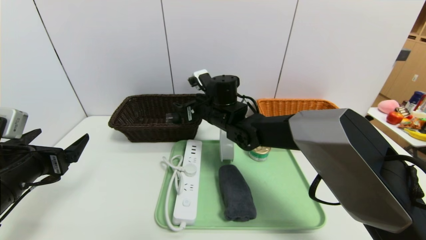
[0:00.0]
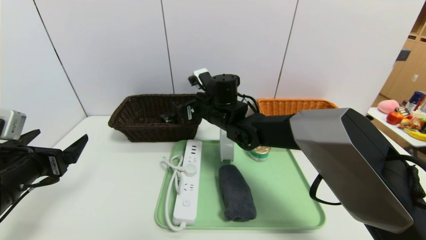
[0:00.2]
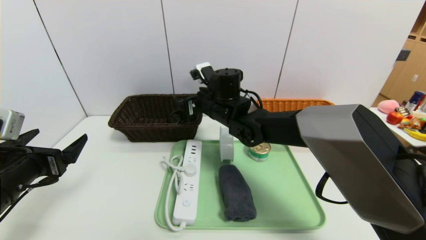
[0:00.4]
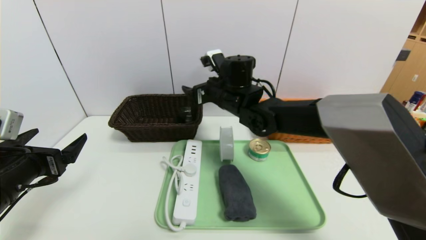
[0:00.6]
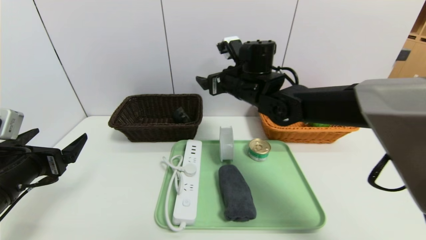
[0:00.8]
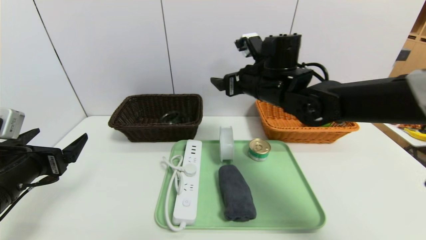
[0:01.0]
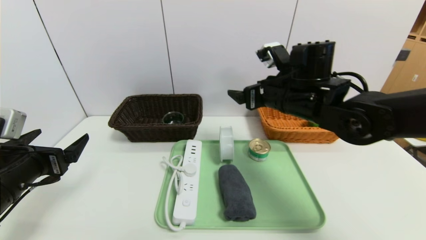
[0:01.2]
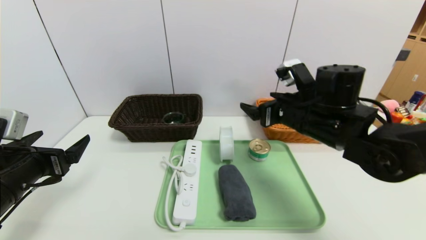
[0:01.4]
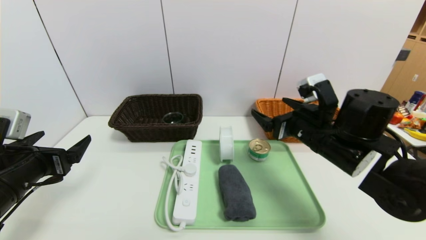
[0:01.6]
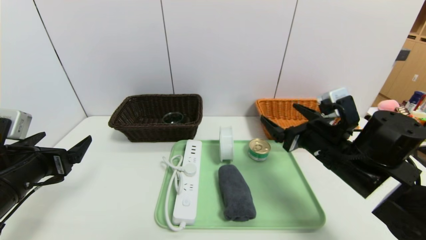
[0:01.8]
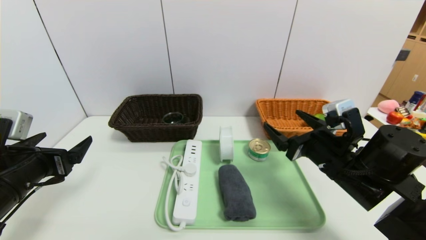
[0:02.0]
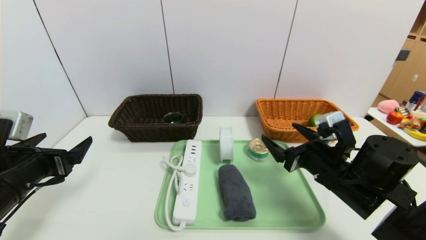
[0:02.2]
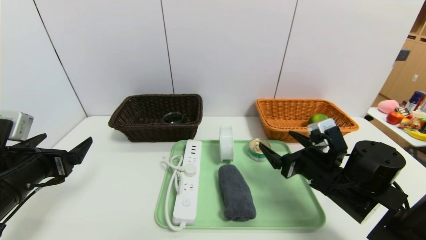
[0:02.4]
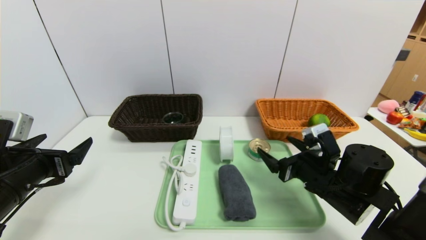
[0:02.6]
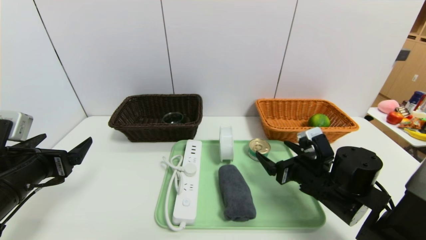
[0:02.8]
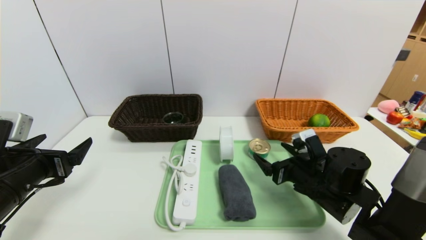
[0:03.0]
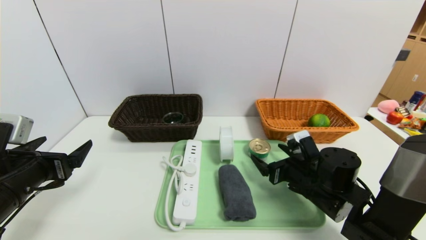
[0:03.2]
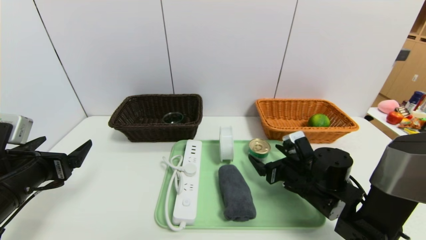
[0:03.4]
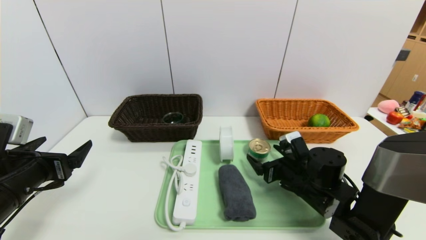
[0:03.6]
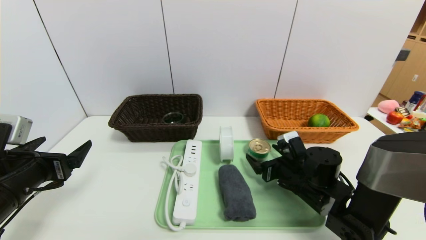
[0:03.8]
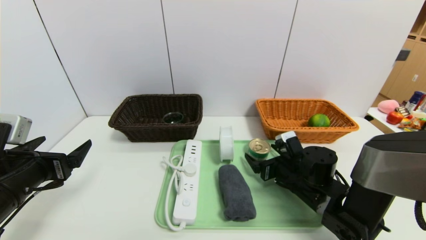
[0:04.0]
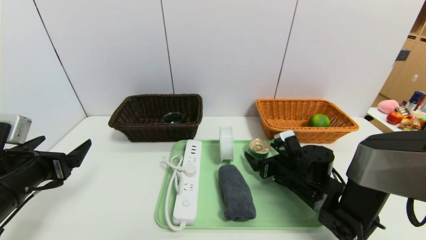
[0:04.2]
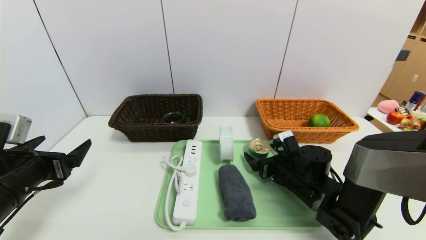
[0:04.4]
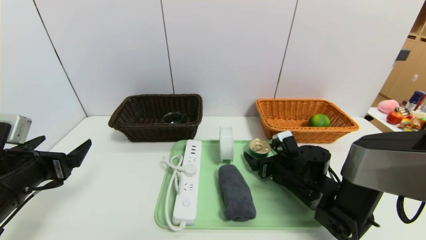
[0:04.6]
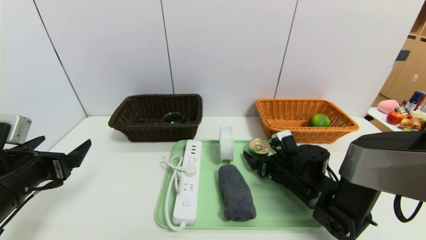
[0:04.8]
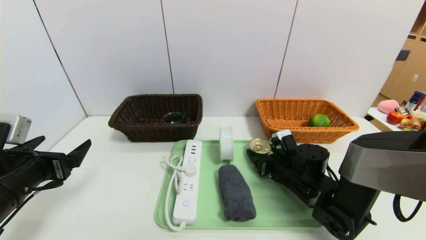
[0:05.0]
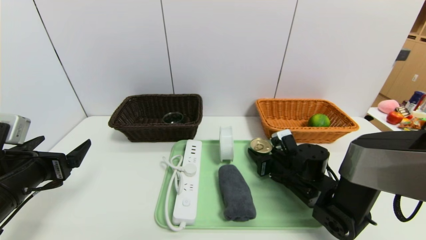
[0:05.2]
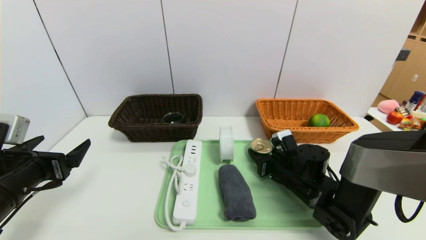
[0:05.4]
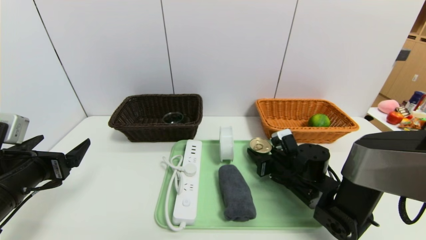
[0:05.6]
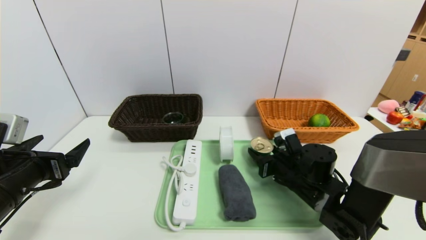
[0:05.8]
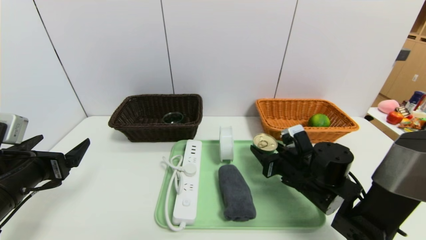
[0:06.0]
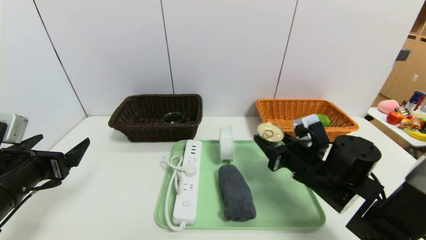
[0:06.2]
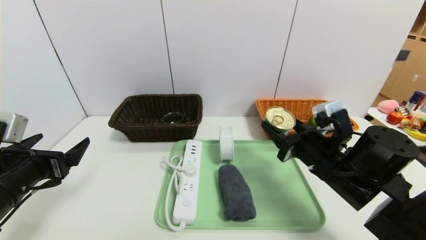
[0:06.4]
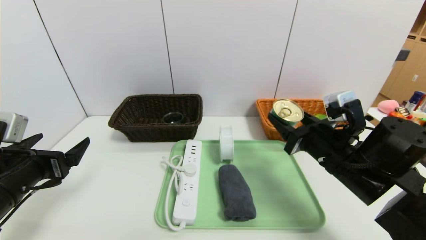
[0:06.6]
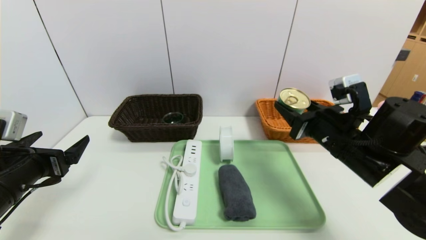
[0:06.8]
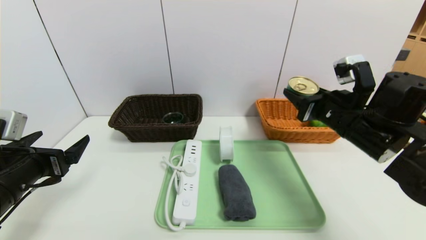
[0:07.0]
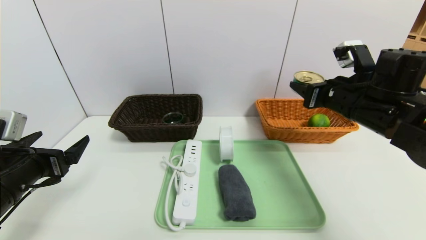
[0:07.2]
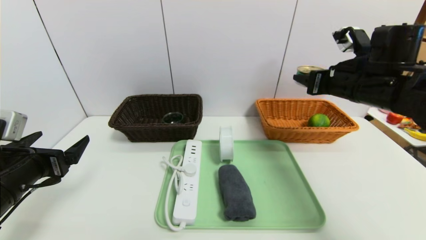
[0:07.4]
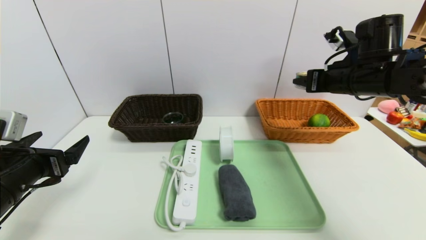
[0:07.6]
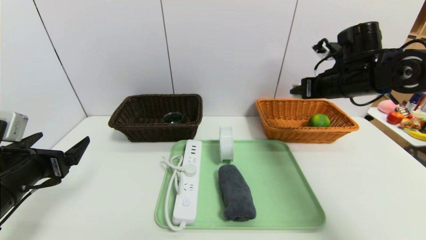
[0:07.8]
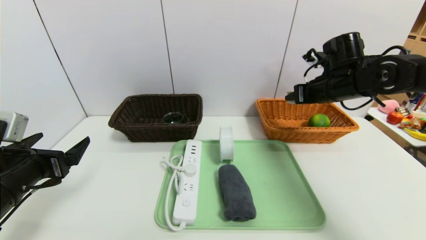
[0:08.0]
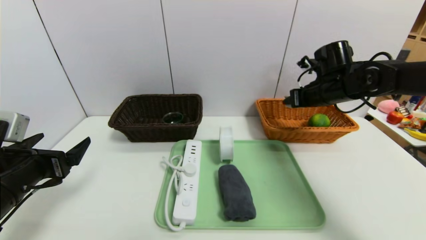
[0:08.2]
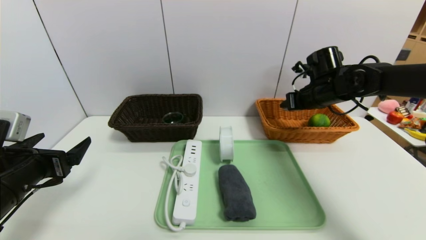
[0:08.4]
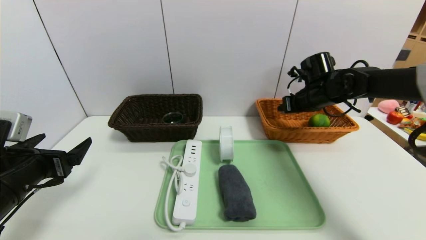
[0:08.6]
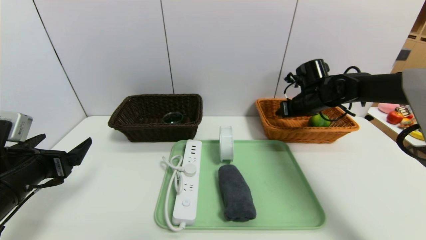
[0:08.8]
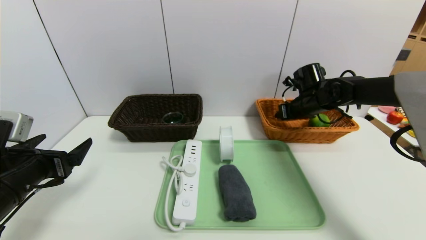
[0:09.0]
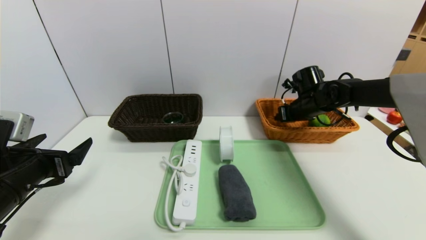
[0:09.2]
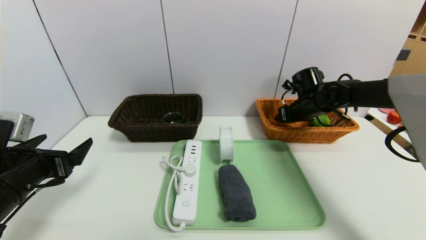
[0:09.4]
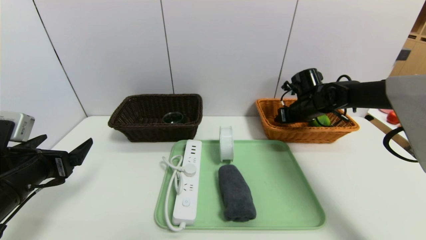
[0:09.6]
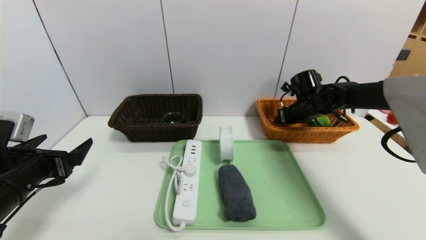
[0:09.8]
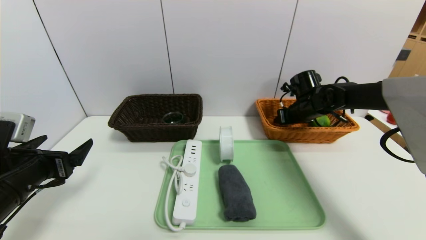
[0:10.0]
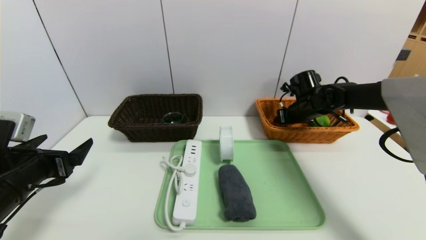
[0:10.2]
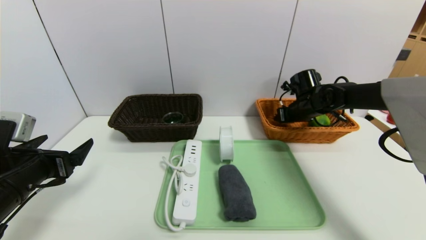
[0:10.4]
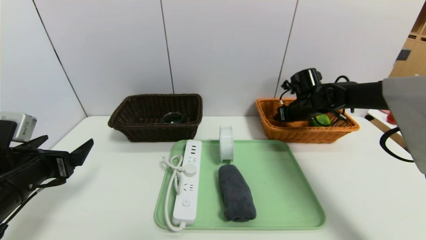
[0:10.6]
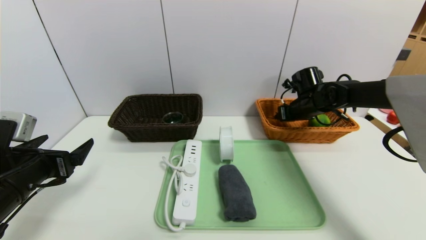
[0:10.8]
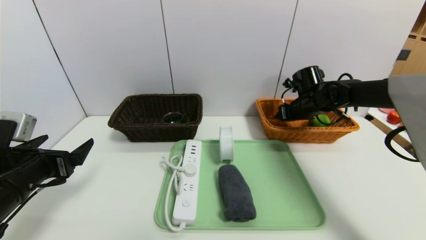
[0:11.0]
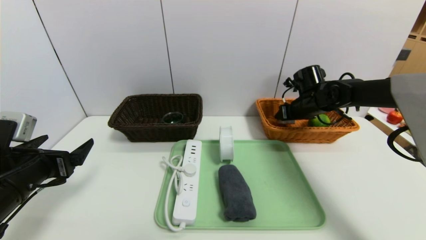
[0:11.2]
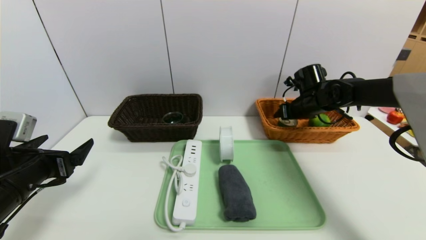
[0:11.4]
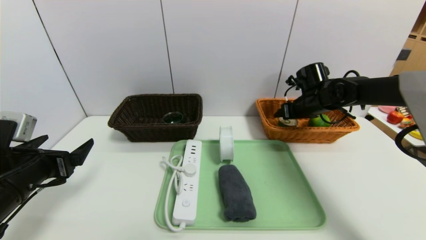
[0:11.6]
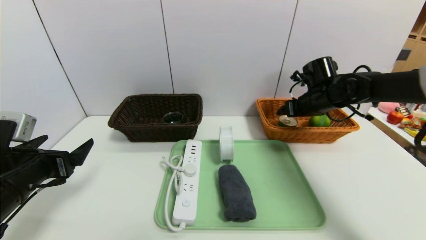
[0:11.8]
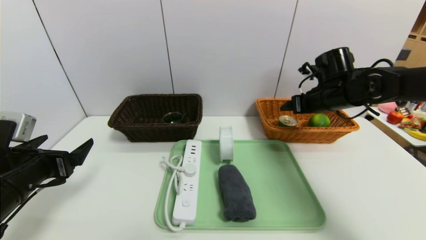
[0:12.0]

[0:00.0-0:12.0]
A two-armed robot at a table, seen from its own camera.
Task of the whole recording: place the food in the right basket with the right gripper, and place the non food items in the left basket with the left gripper.
Step, 0:00.2 to 0:11.4: Grasp the can and put it in the right basket.
0:00.0 to 0:01.6: The right gripper travels to the right and backward by about 25 cm.
0:01.6 to 0:03.0: The right gripper goes about 10 cm downward.
0:03.0 to 0:04.4: The right gripper ends up about 5 cm from where it was.
0:04.4 to 0:06.0: The right gripper ends up some 5 cm from where it was, and closes.
0:06.0 to 0:07.6: The right gripper goes about 20 cm upward and to the right.
0:07.6 to 0:09.0: The right gripper goes roughly 15 cm forward and downward.
0:09.0 to 0:10.4: The grippers make only small movements.
0:10.4 to 0:12.0: The right gripper is displaced backward and upward by some 10 cm, and opens up.

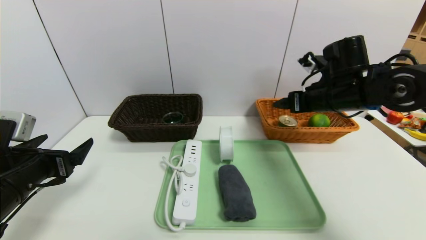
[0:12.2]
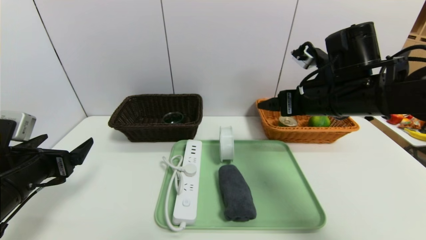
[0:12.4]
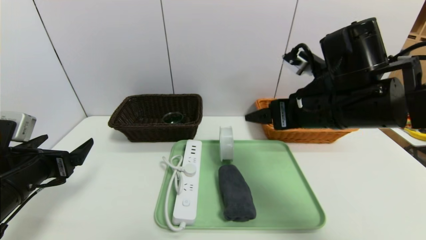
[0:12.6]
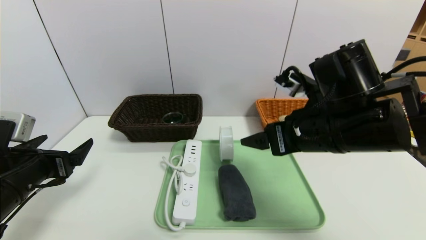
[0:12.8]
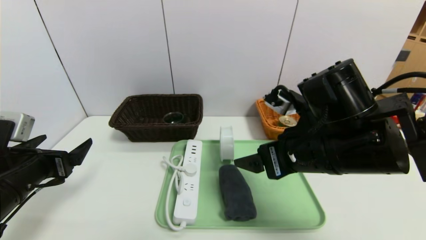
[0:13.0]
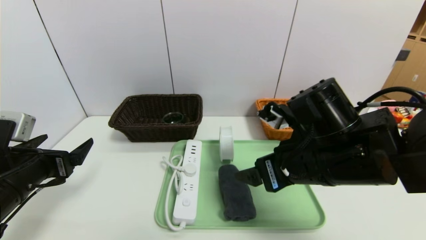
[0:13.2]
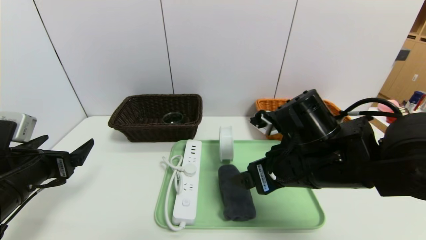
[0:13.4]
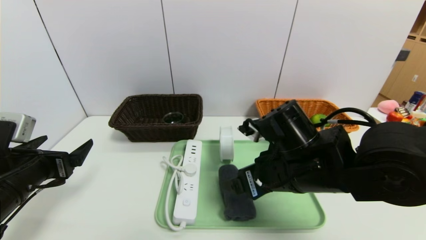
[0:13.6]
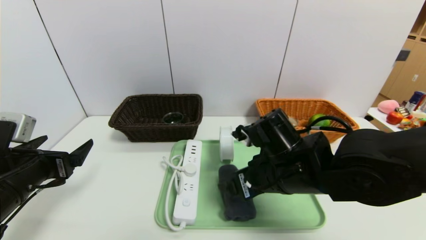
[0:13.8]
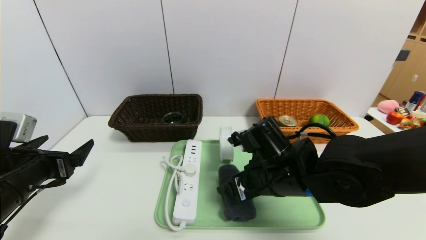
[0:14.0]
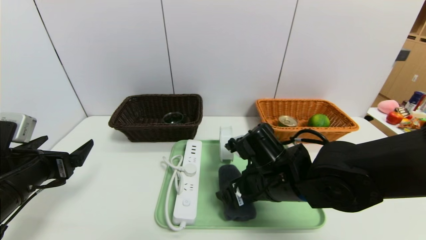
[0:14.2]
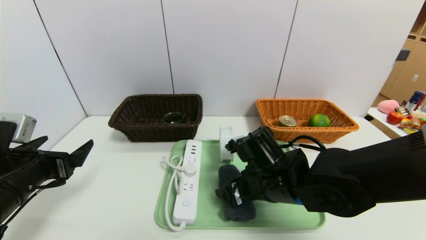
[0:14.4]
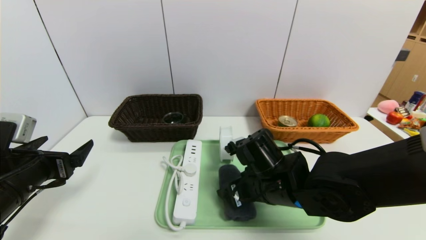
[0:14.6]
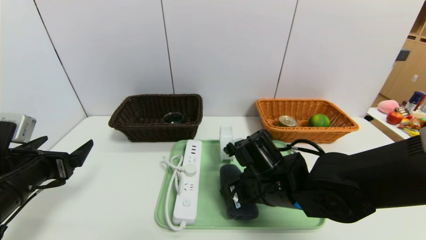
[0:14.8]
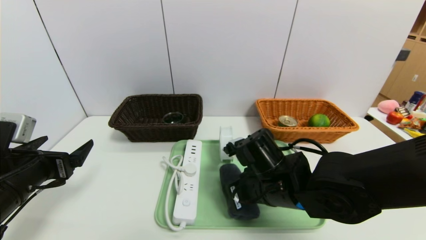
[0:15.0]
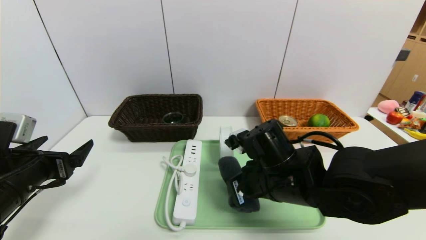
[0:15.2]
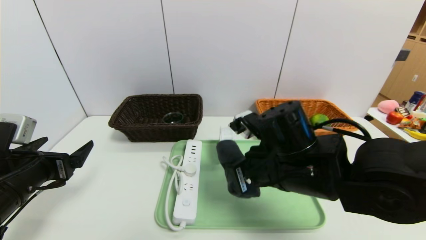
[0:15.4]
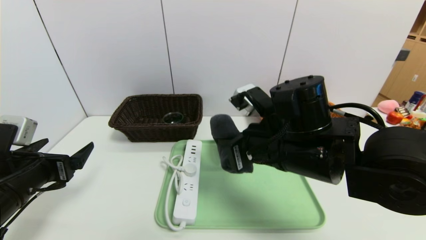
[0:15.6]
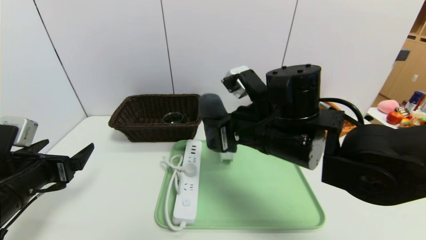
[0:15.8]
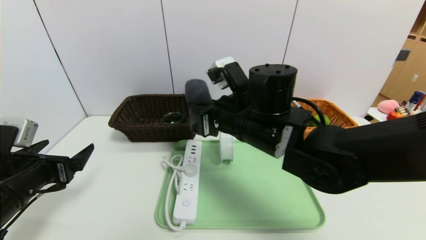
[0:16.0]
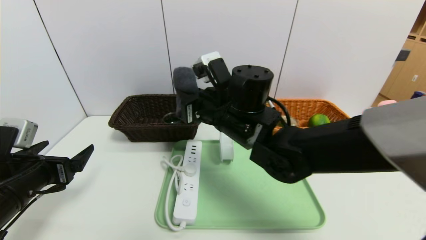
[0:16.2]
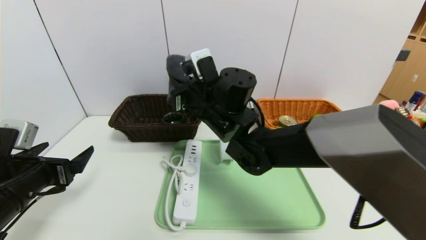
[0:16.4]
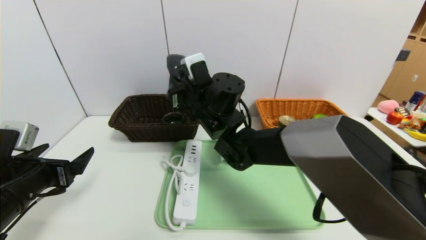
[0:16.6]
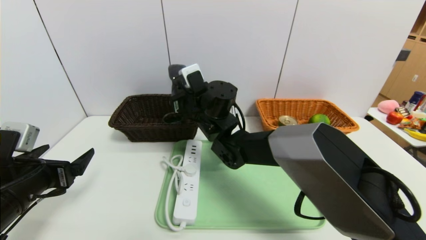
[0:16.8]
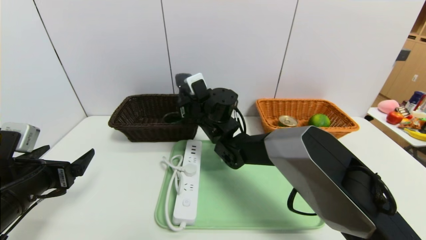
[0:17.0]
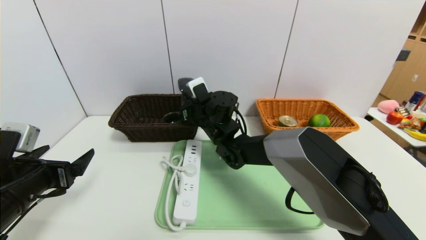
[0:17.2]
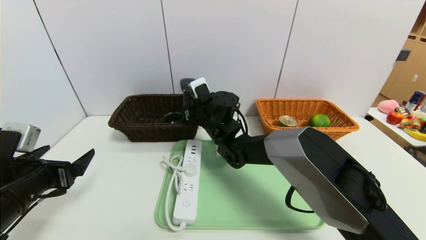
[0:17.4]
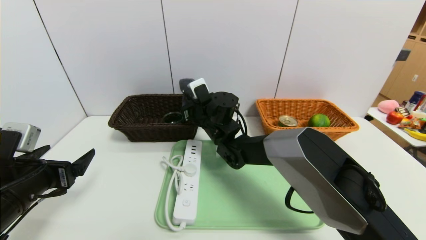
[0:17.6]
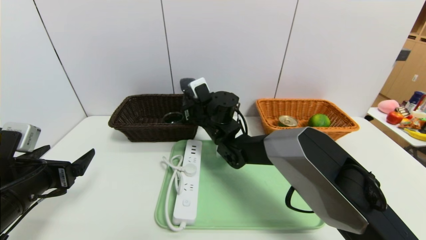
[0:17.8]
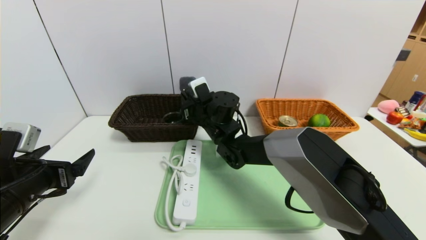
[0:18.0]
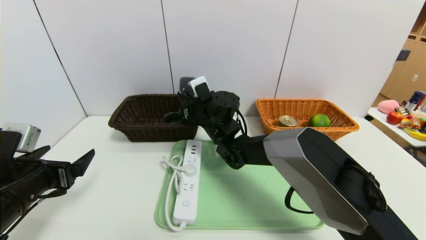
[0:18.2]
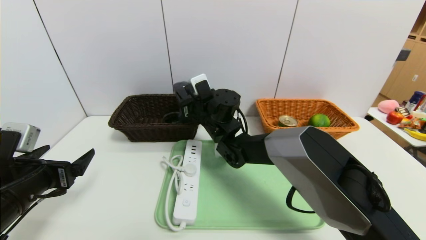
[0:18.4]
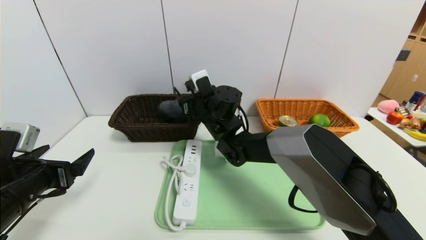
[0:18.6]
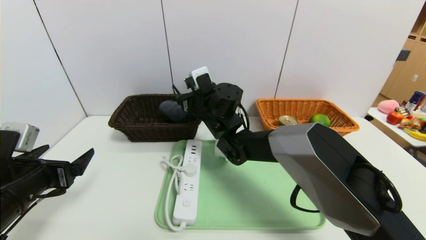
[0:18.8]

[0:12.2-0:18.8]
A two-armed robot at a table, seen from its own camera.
Task of the whole recording: place the food in the right basket with the right gripper, and place the non food items in the left basket with the left gripper.
0:12.2 to 0:13.8: The right gripper moves to the left, backward and downward, roughly 20 cm.
0:13.8 to 0:15.4: The right gripper closes.
0:15.4 to 0:17.2: The right gripper shifts about 20 cm forward and to the left.
0:17.2 to 0:18.8: The right gripper opens its fingers.
